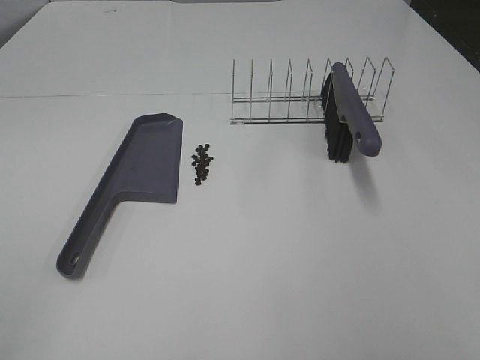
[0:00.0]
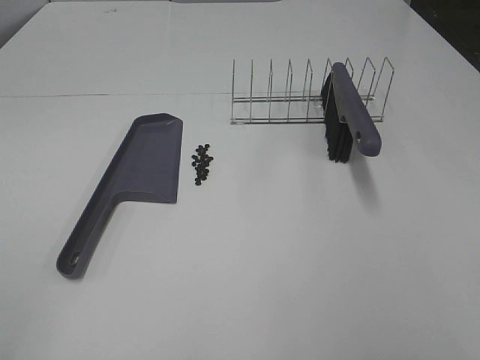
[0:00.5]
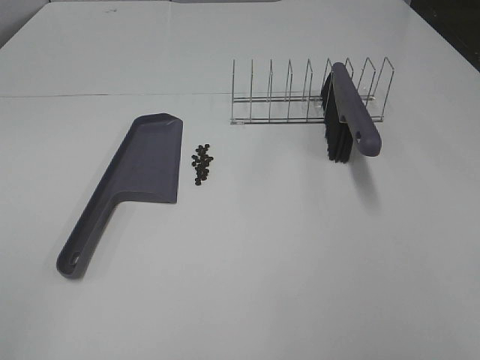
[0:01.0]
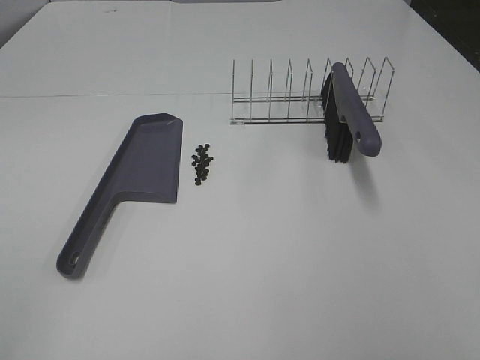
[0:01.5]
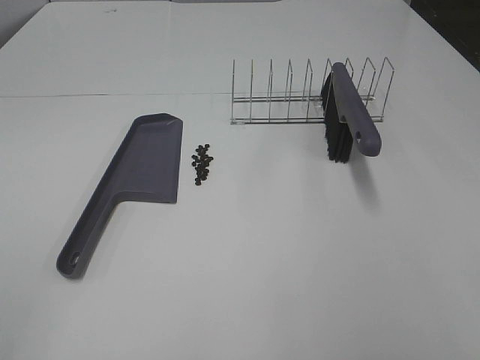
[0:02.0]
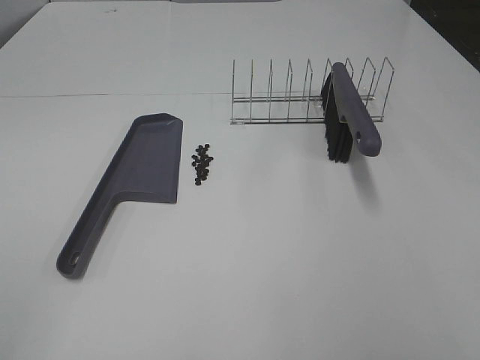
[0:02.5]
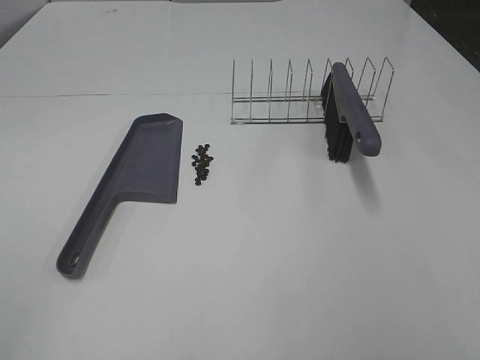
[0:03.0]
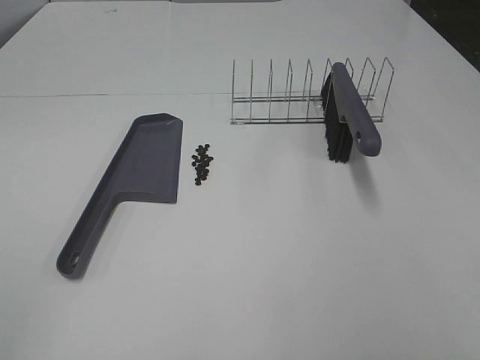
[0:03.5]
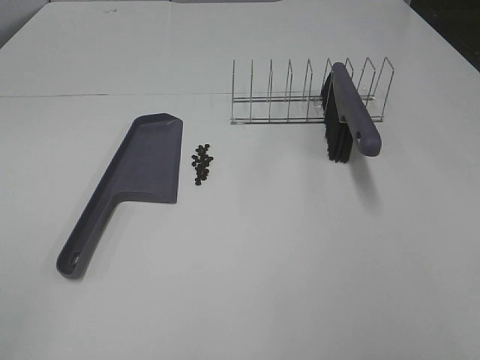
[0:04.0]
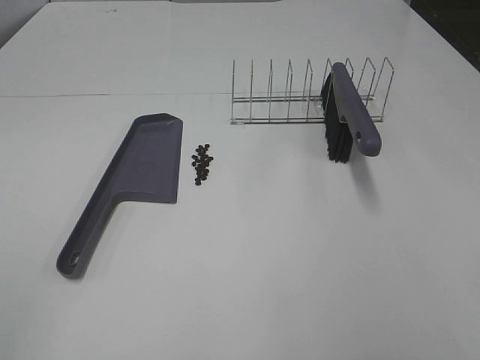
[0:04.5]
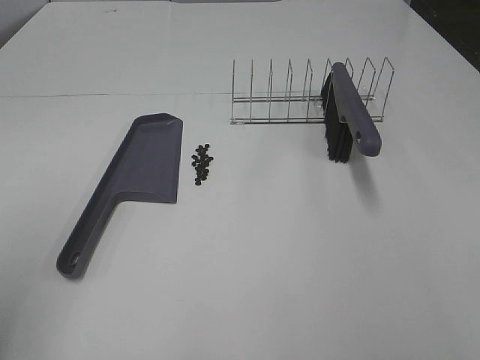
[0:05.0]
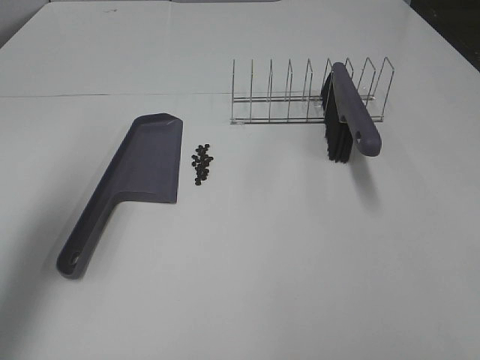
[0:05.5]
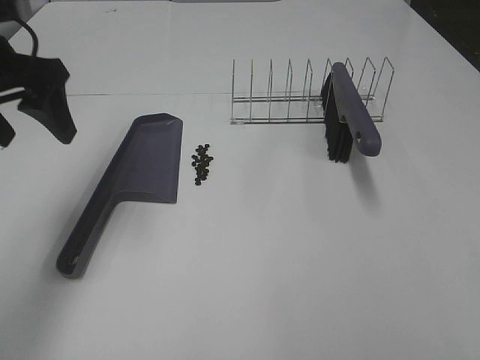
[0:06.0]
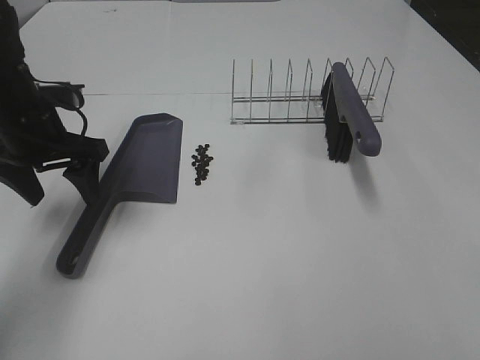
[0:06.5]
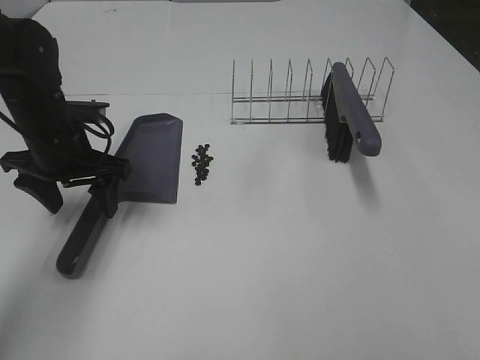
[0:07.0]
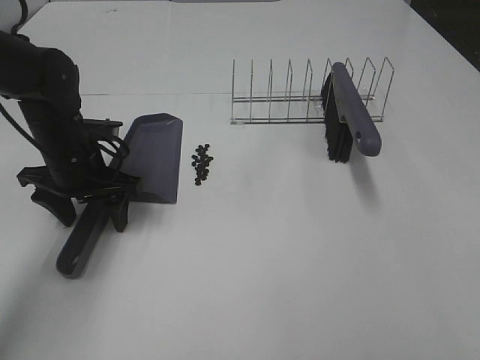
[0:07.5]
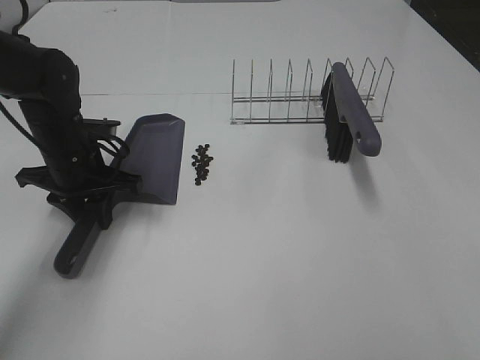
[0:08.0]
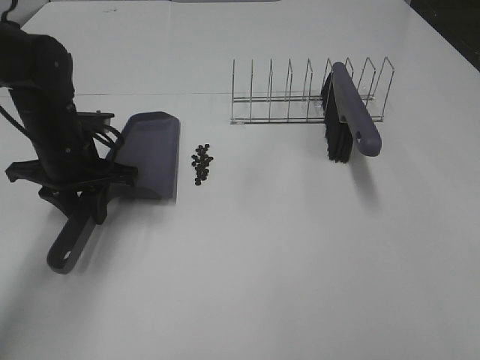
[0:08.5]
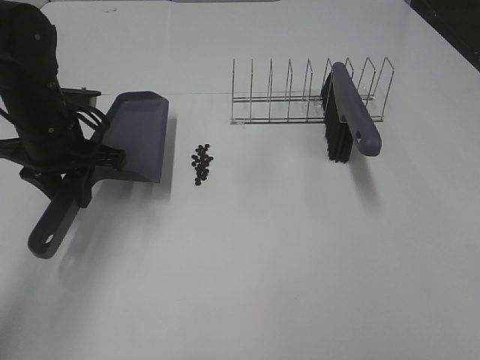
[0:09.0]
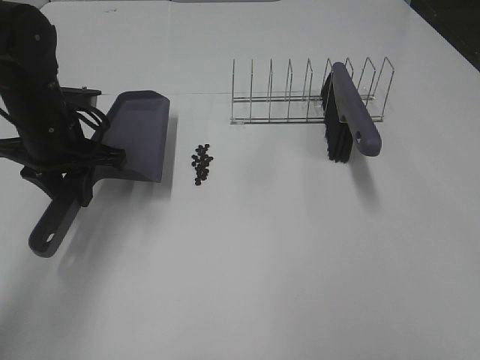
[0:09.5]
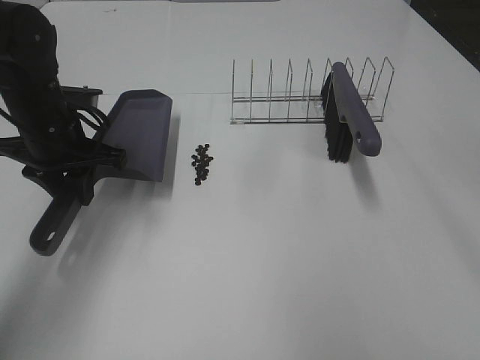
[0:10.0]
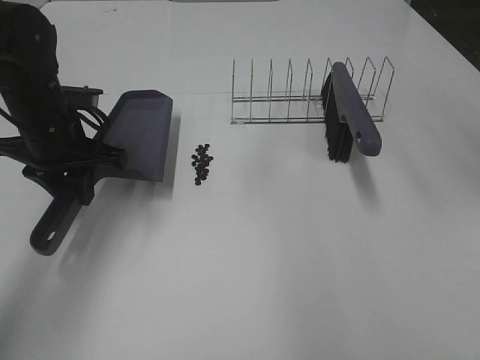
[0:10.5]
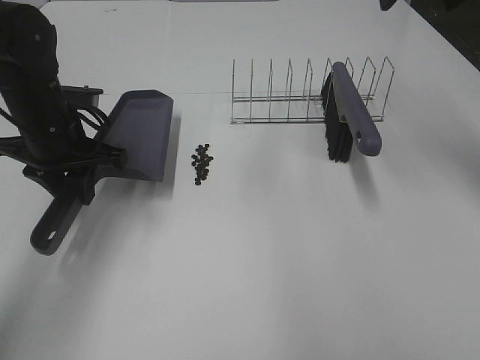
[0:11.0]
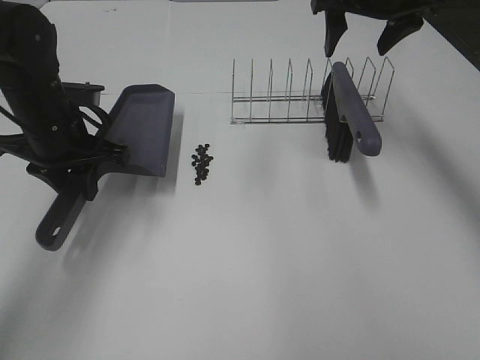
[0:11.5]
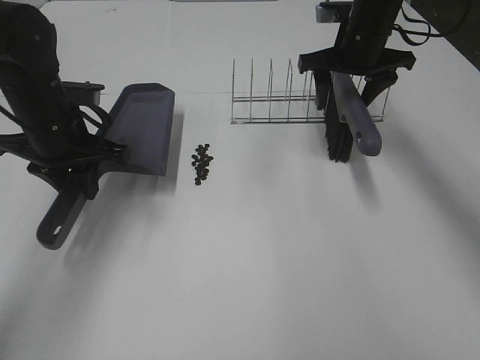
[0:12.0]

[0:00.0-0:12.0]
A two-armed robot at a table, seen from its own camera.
Task of the whole recording: Sweep Coffee Bean.
Step, 0:00.0 to 0:08.0: Left hand: grab the dustpan.
0:00.0 to 0:04.0: The two grippers keep their place.
0:04.0 to 0:06.0: The left gripper shifts some 35 cm forward.
0:06.0 to 0:08.0: The left gripper goes about 15 cm downward, and closes its fingers.
0:08.0 to 0:10.0: The left gripper heads upward, covering approximately 5 cm. Meanwhile the right gripper goes approximately 20 cm forward and upward.
0:10.0 to 0:12.0: The right gripper moves forward and downward, roughly 35 cm.

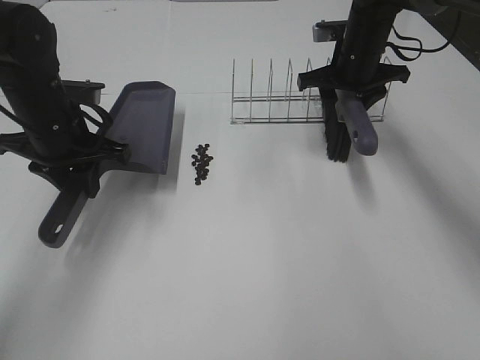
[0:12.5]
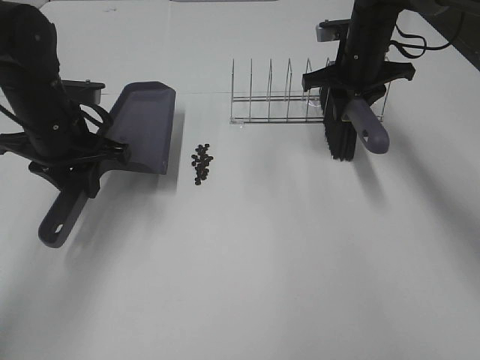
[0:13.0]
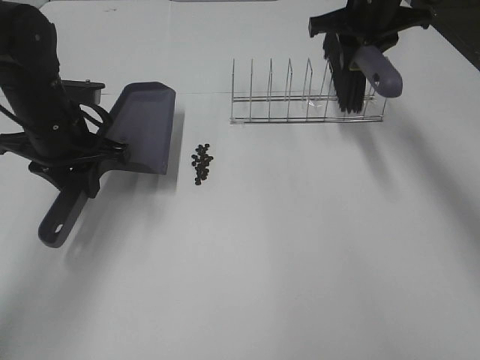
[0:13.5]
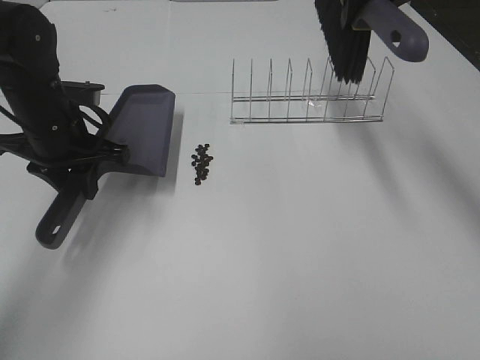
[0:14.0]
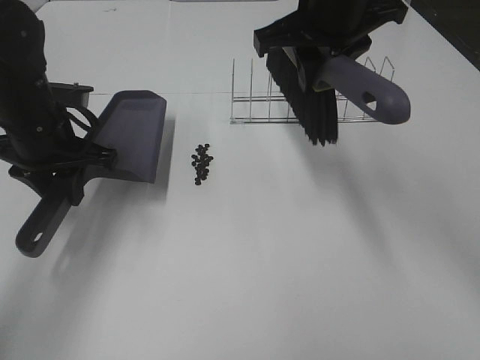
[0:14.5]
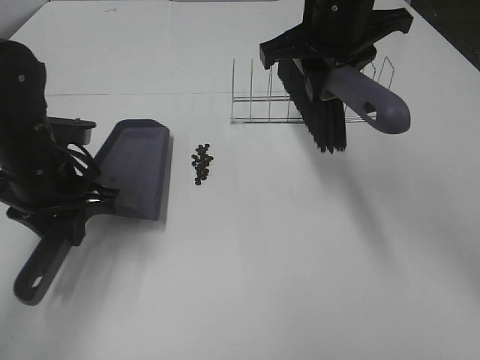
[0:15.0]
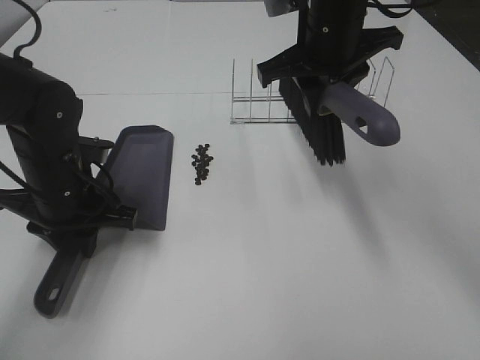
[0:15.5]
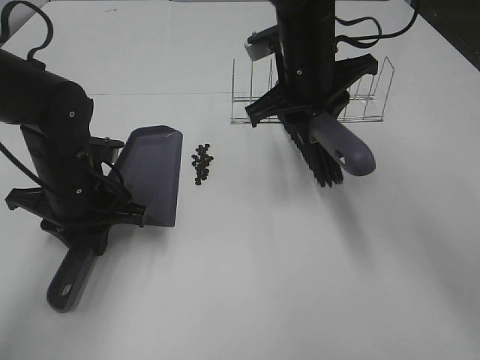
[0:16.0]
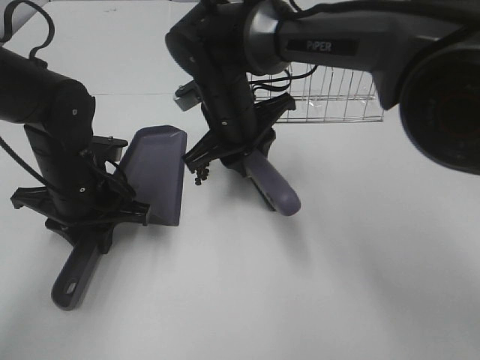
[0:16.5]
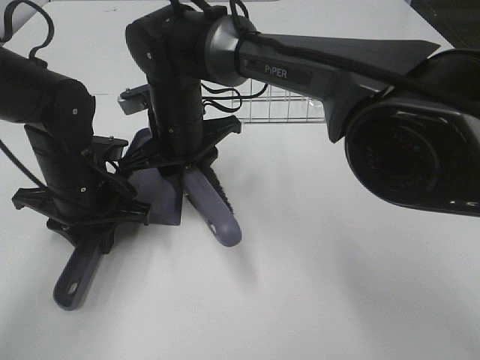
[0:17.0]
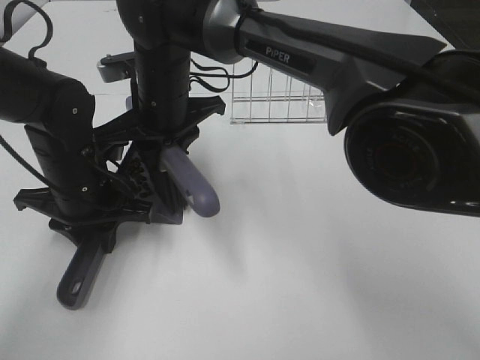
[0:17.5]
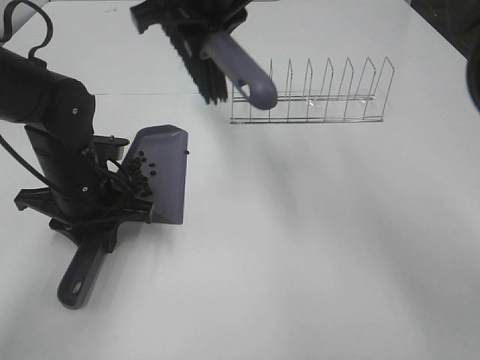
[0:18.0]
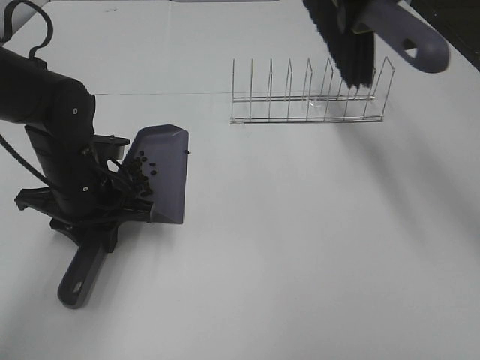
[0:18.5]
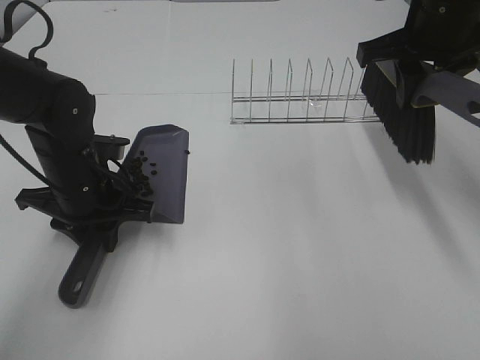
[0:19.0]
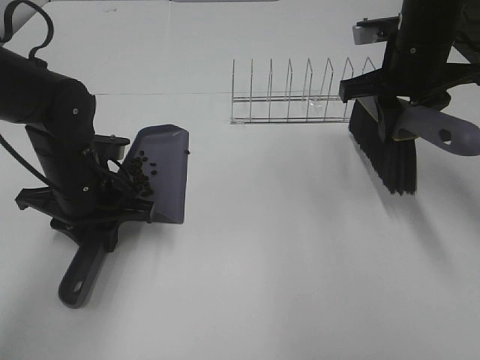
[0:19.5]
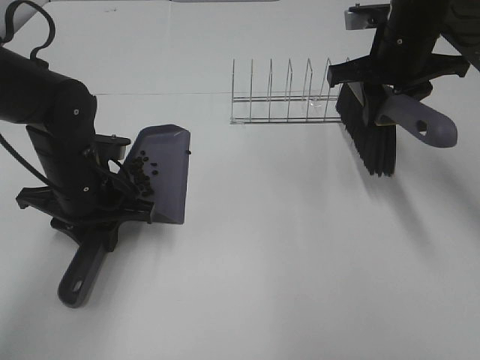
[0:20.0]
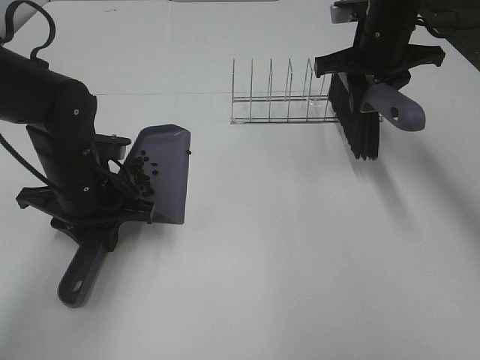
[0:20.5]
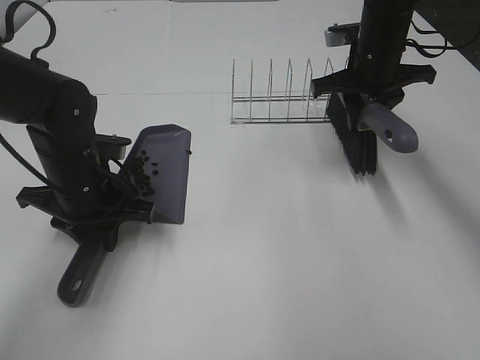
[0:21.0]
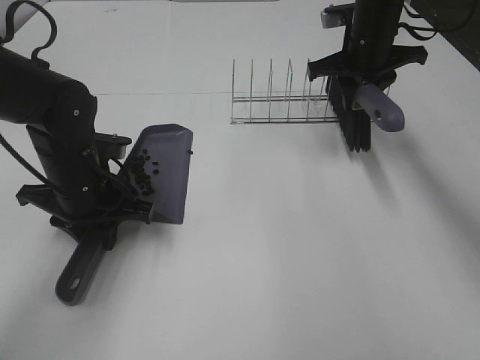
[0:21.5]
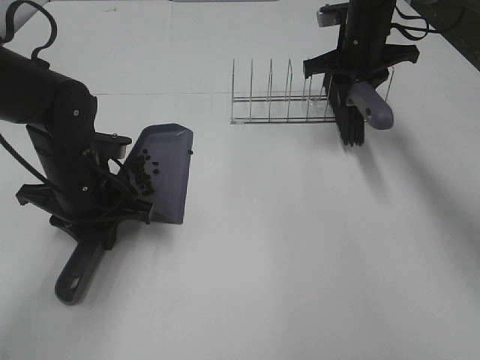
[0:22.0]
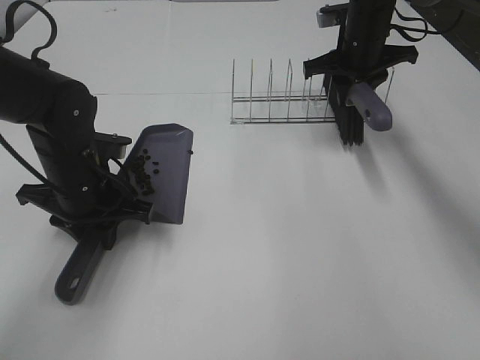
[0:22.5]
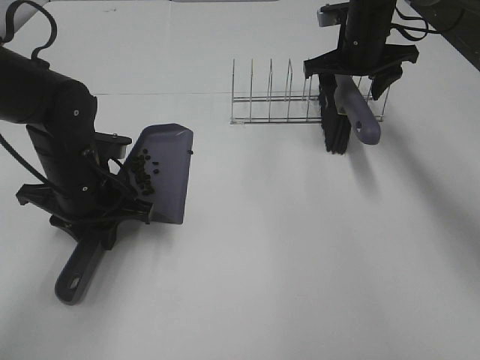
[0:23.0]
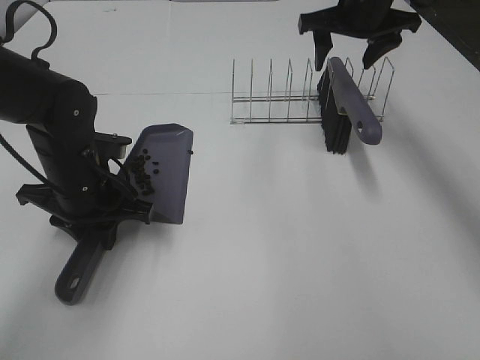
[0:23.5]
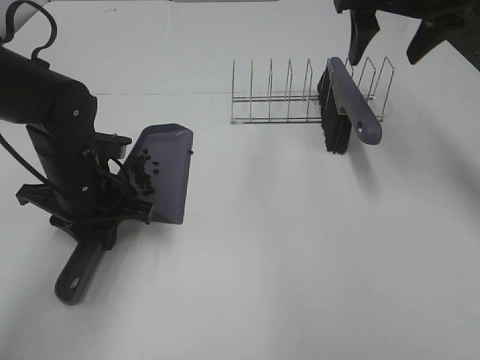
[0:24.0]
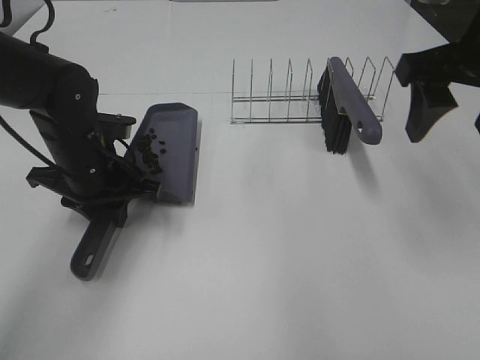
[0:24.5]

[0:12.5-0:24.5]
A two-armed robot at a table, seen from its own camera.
Task of the whole recording: Sweep Coffee Bean.
Step, 0:12.5 to 0:15.5: Left hand: move the dustpan to the left side of the coffee beans.
Step, 0:13.0 to 0:17.5: Right hand:sweep the coffee beans into the dustpan.
Step, 0:18.0 to 0:22.5: Right hand:place the broom on the rack.
0:12.5 to 0:14.5: The right gripper travels upward, backward and to the left by roughly 20 cm.
0:14.5 to 0:16.5: The right gripper shifts some 20 cm downward and to the left. Meanwhile the left gripper is displaced downward by approximately 5 cm.
0:16.5 to 0:18.5: The right gripper travels upward and to the right by approximately 25 cm.
0:18.5 to 0:20.5: The right gripper heads downward and forward, covering about 15 cm.
0:20.5 to 0:22.5: The right gripper is displaced forward by about 5 cm.
0:22.5 to 0:24.5: The right gripper goes approximately 25 cm backward and upward, and opens its fingers.

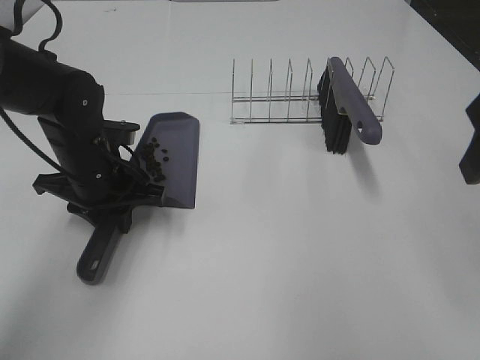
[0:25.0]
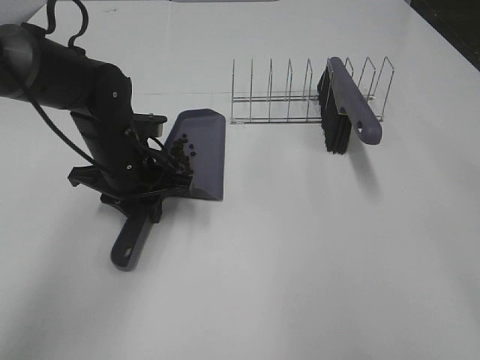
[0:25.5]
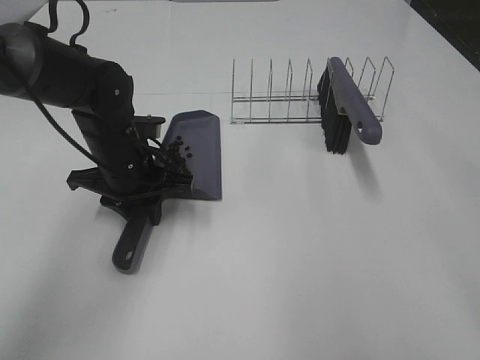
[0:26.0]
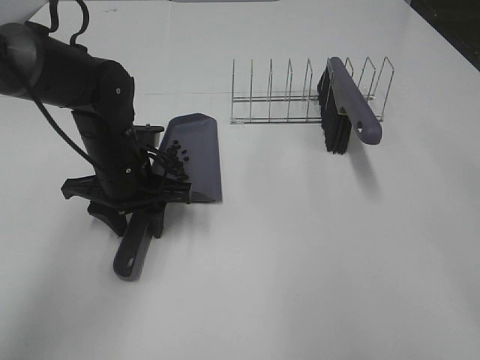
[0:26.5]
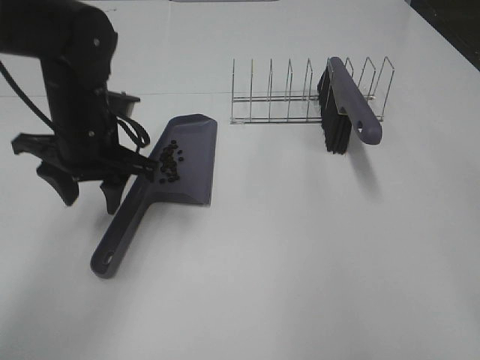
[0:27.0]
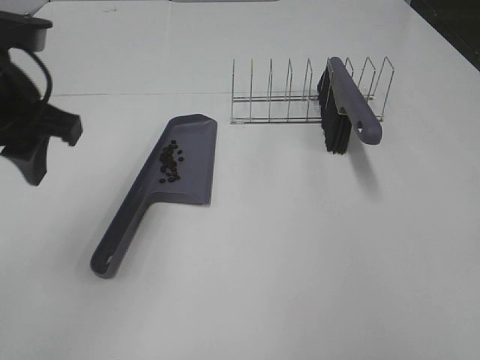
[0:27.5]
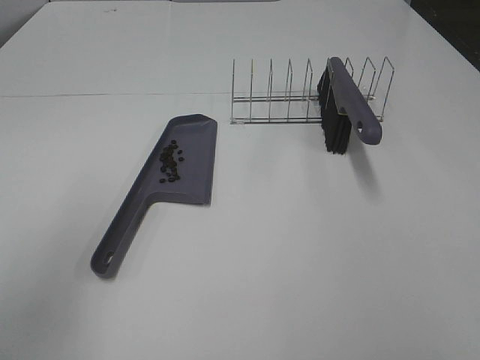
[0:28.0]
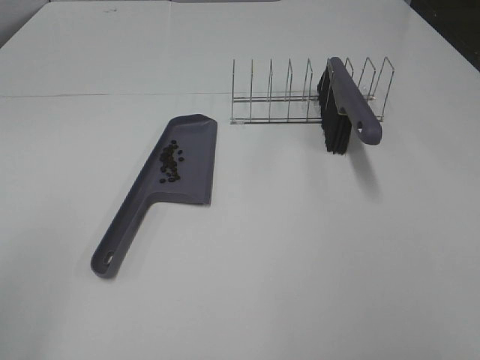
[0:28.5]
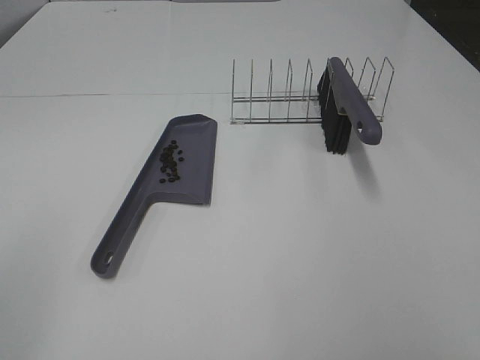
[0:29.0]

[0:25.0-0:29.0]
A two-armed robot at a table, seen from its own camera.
Task of the whole recording: Sweep Coffee Bean.
0:25.0 to 0:27.0: The left gripper moves upward, about 10 cm, and opens its fingers; the right gripper travels backward by roughly 5 cm.
0:27.0 to 0:29.0: The right gripper shifts roughly 10 cm backward and downward. The left gripper moves backward and to the left, approximately 35 cm.
